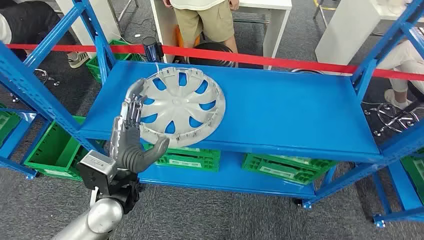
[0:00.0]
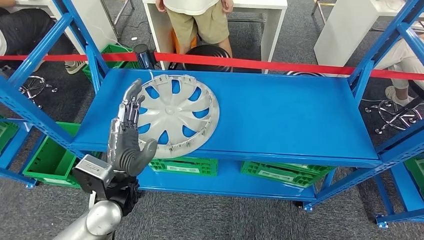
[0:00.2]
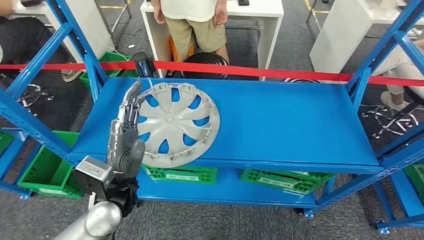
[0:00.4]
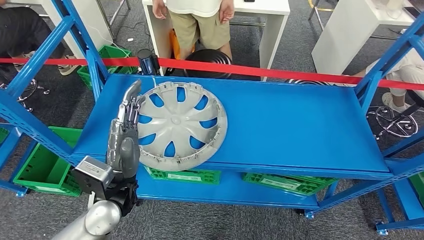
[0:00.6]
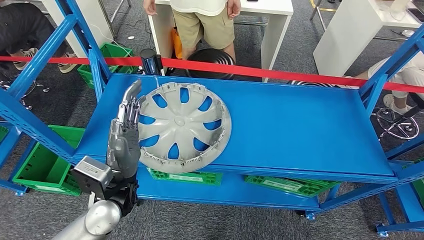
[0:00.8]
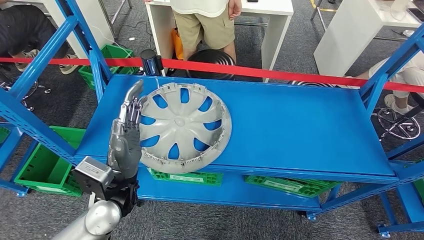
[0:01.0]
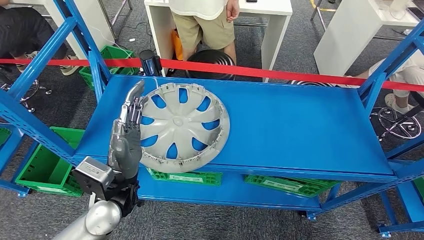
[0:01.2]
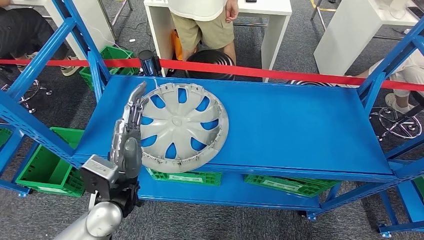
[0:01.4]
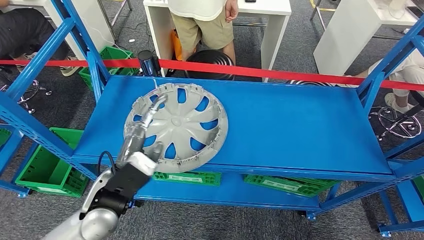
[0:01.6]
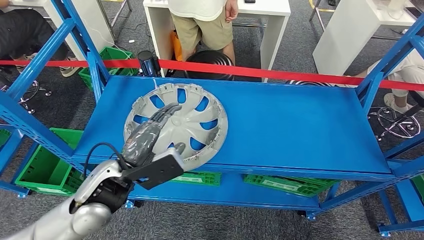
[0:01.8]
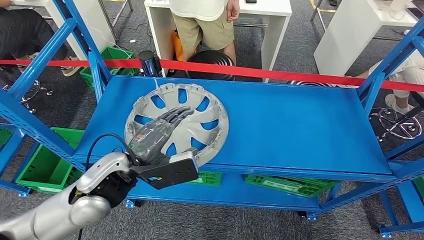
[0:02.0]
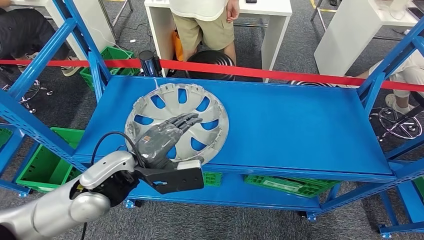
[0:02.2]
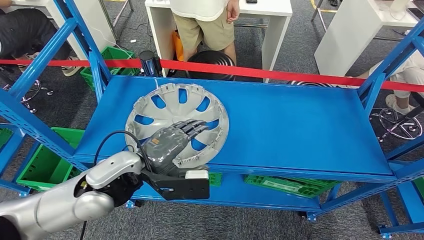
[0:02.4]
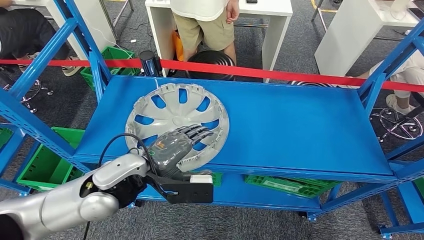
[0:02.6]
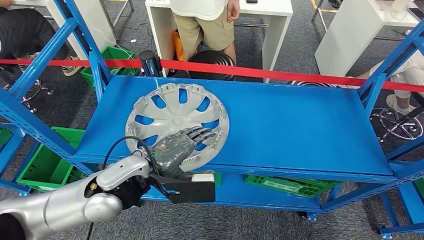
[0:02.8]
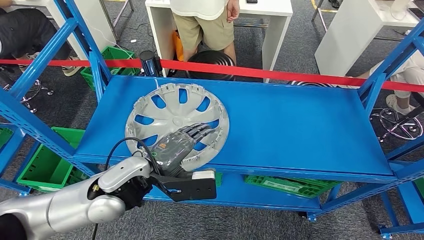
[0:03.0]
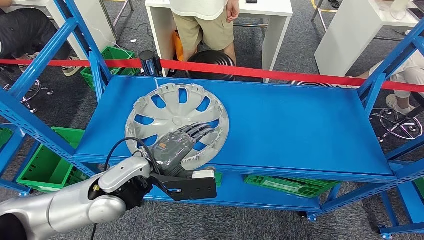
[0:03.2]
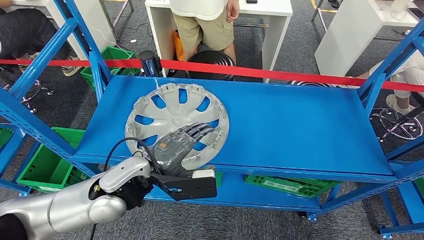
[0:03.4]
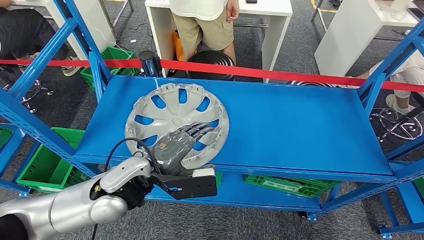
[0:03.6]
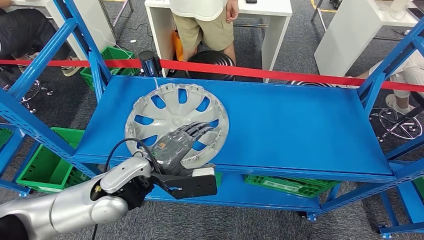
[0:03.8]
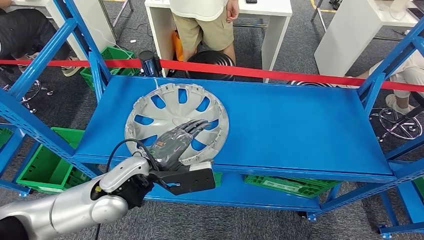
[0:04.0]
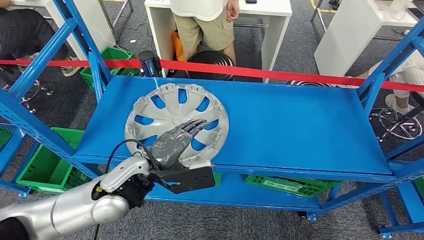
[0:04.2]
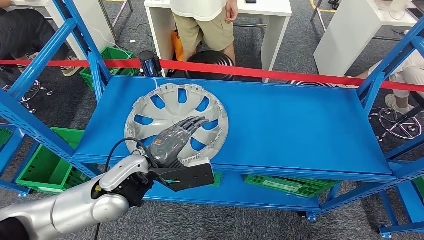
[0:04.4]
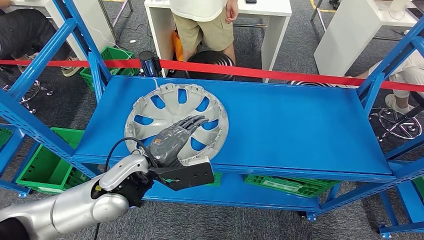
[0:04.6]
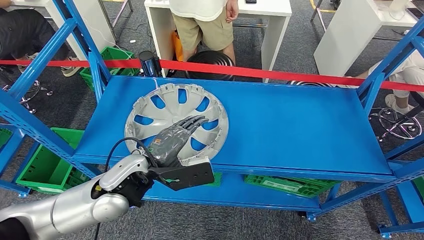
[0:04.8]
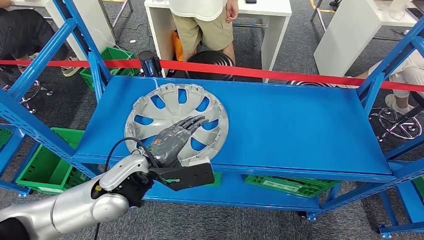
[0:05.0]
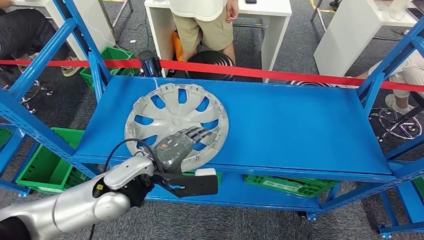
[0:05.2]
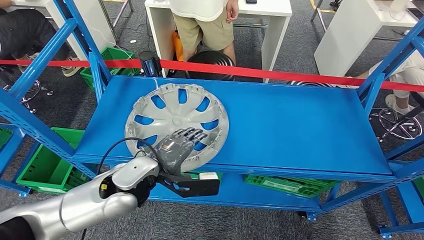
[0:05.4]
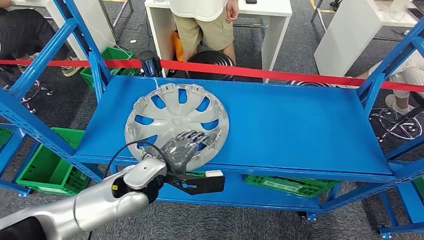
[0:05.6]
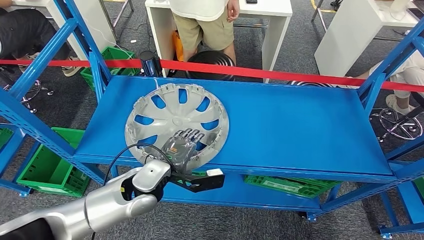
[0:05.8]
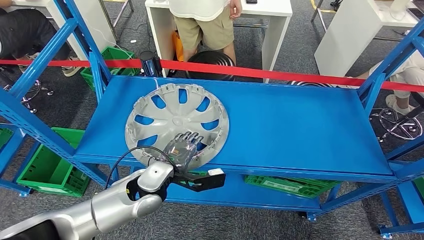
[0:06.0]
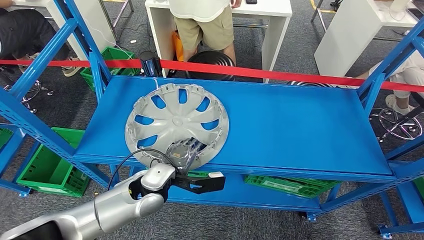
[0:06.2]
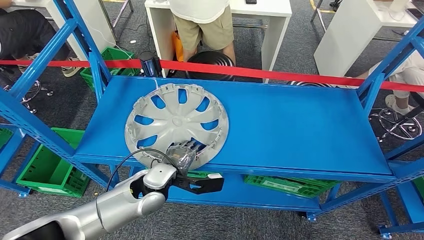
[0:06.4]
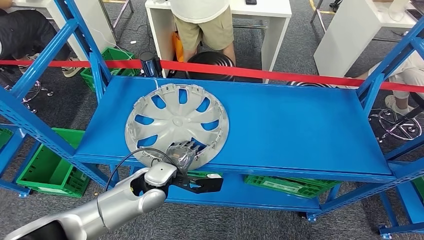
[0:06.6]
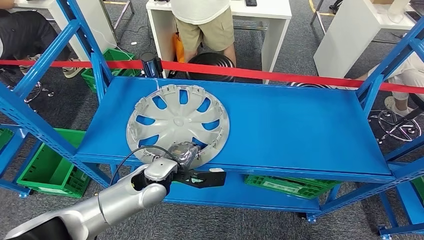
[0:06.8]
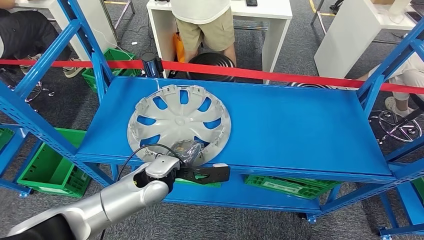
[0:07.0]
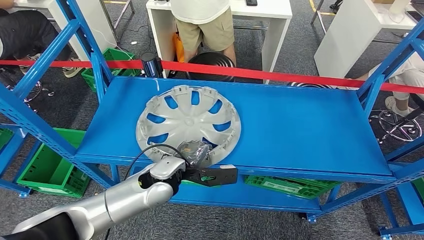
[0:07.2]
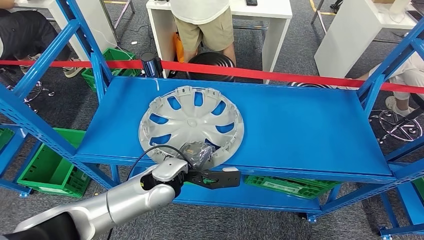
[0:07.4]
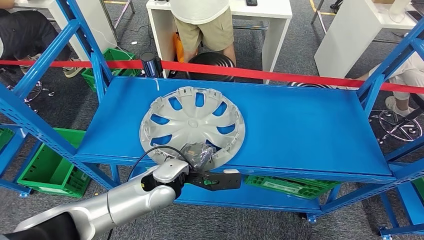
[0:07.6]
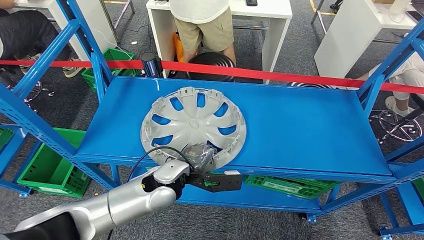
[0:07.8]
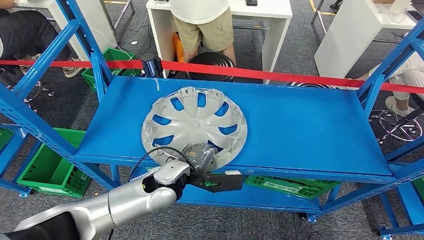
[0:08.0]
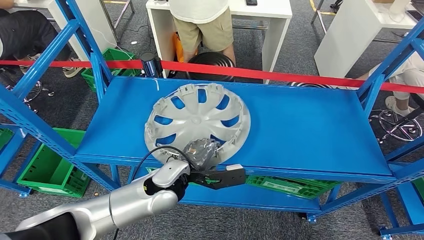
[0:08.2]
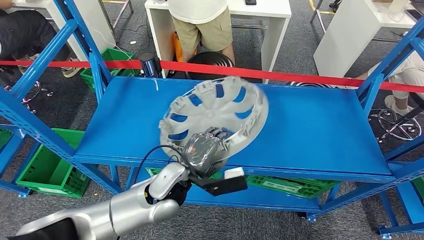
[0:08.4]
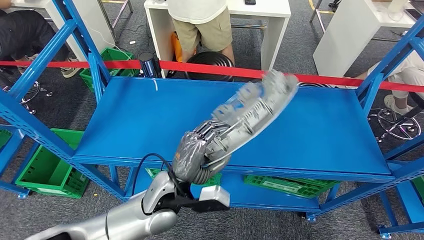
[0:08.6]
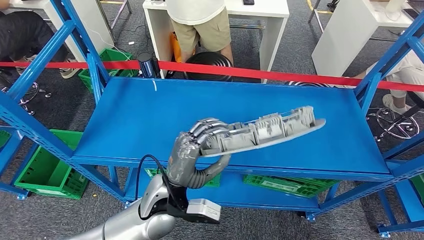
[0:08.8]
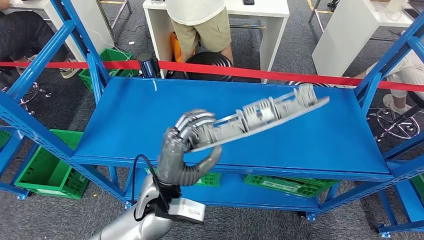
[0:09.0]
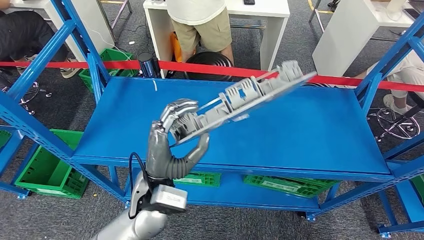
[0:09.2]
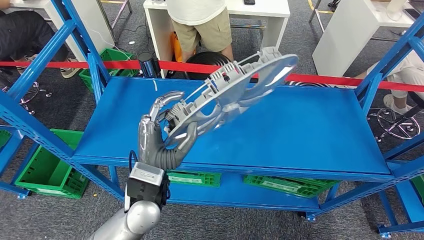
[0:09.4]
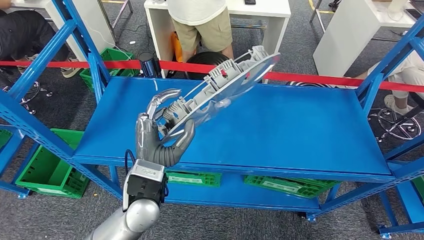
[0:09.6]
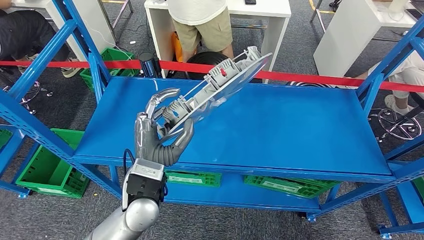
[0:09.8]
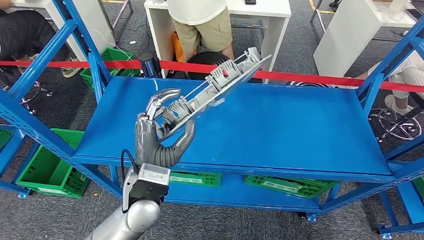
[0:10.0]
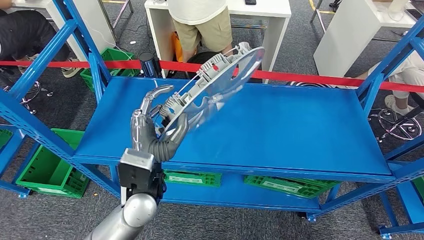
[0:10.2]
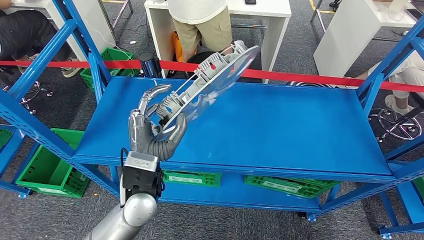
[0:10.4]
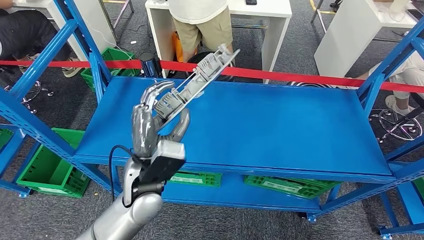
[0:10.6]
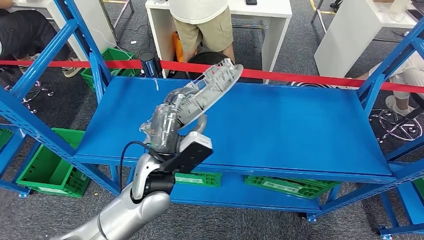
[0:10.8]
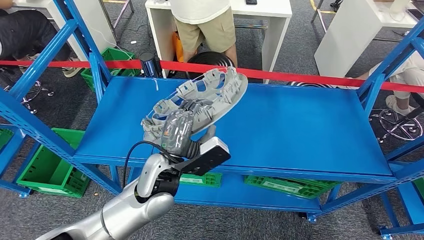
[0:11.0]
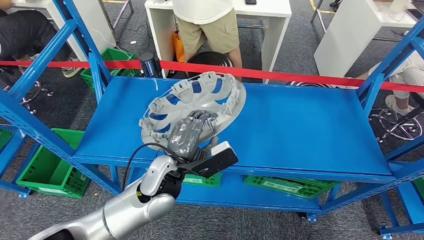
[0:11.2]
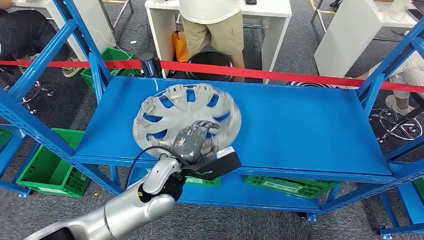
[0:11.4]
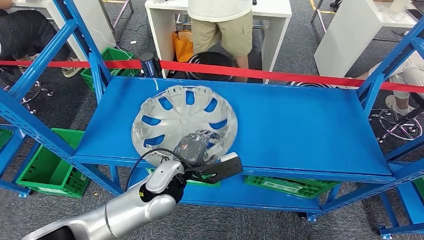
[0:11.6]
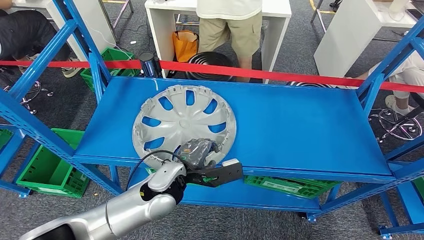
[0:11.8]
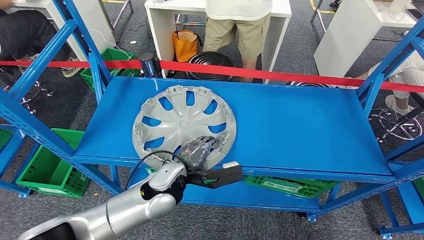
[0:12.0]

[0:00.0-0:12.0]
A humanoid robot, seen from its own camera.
0:03.0 to 0:04.4: The hands stay close to where they were, moving slightly.
0:04.4 to 0:06.0: The left hand goes some 10 cm downward.
0:06.0 to 0:07.6: The hands stay close to where they were, moving slightly.
0:10.4 to 0:12.0: The left hand shifts approximately 5 cm downward.

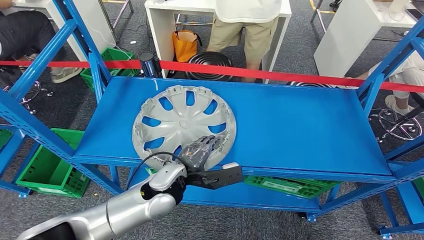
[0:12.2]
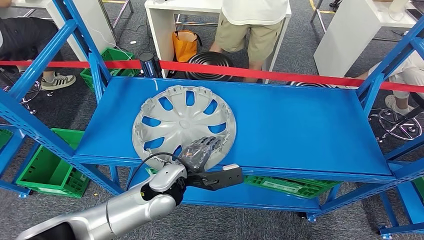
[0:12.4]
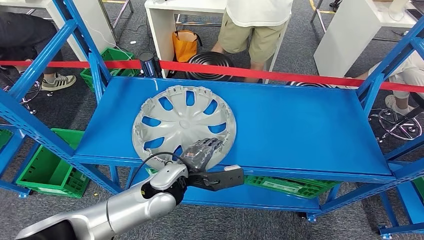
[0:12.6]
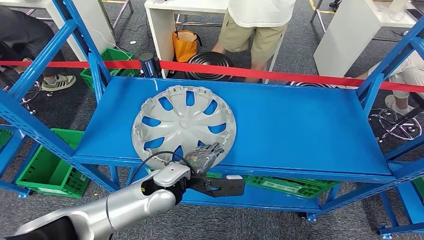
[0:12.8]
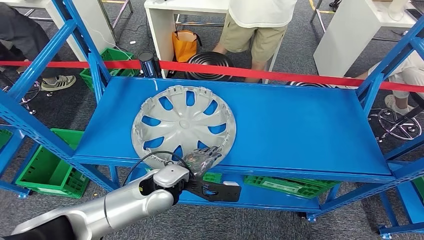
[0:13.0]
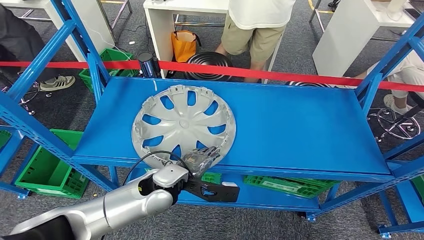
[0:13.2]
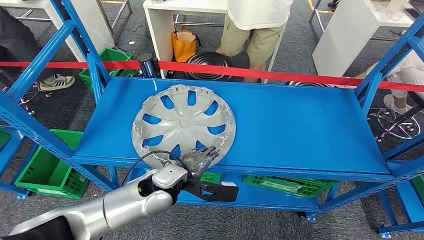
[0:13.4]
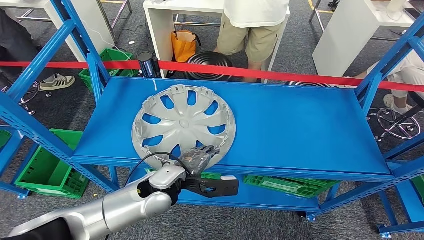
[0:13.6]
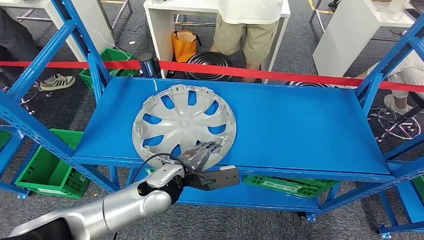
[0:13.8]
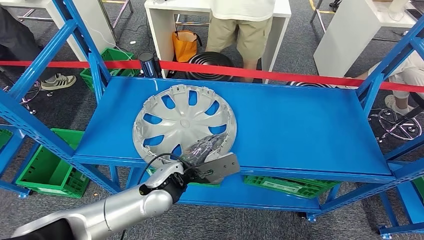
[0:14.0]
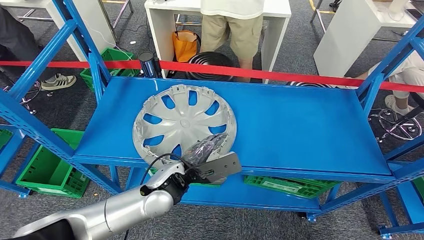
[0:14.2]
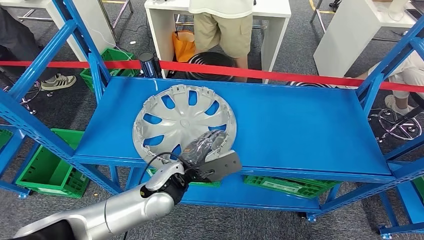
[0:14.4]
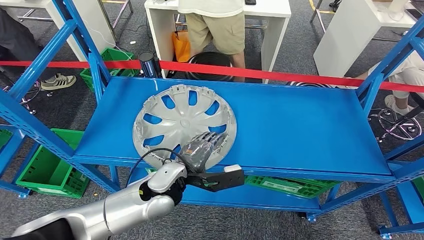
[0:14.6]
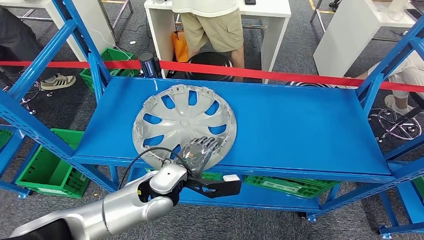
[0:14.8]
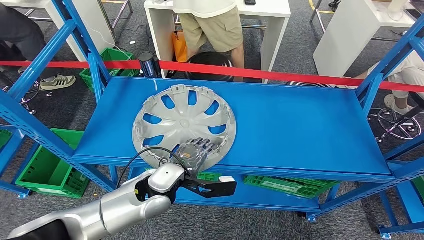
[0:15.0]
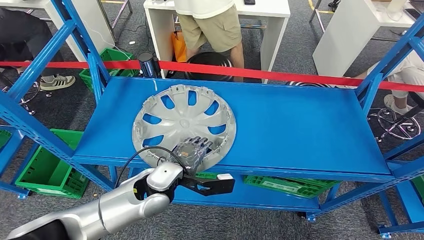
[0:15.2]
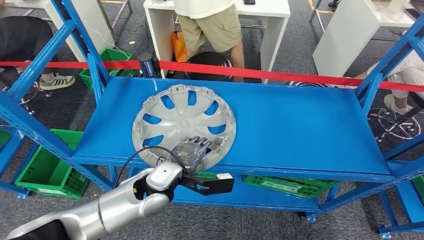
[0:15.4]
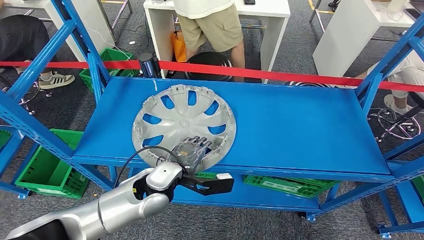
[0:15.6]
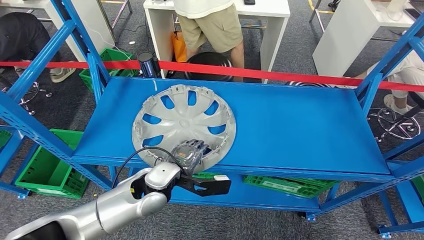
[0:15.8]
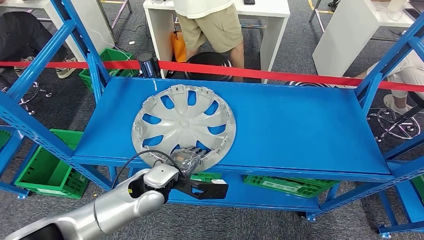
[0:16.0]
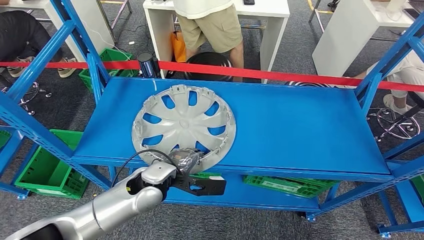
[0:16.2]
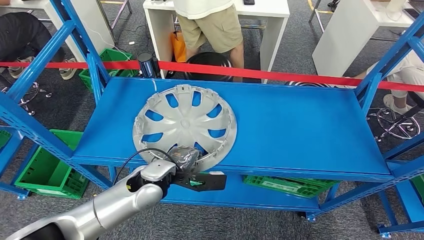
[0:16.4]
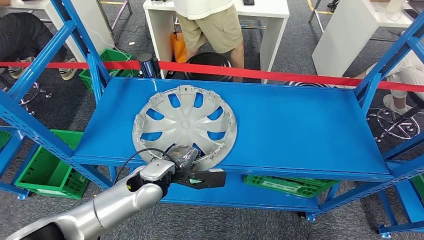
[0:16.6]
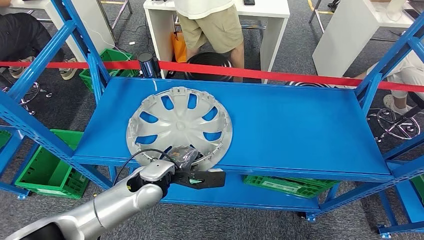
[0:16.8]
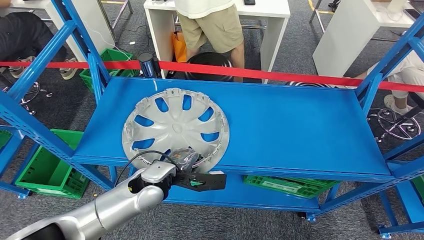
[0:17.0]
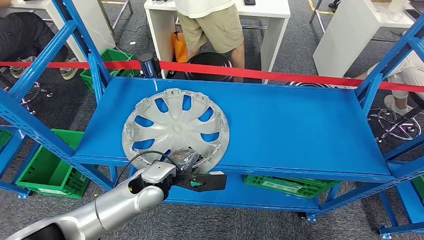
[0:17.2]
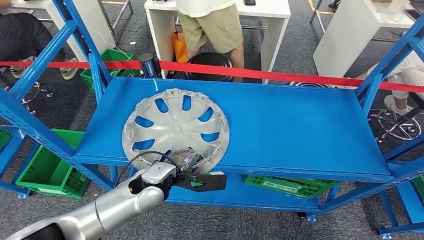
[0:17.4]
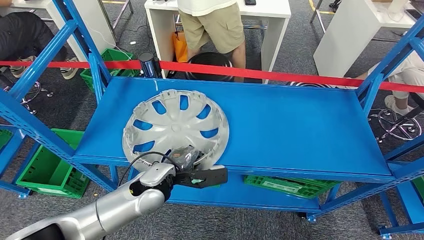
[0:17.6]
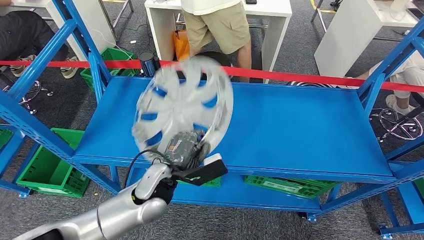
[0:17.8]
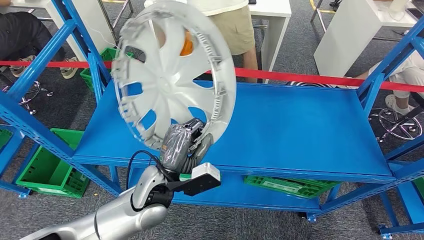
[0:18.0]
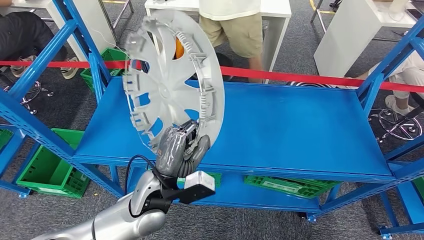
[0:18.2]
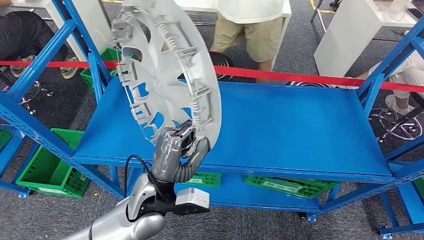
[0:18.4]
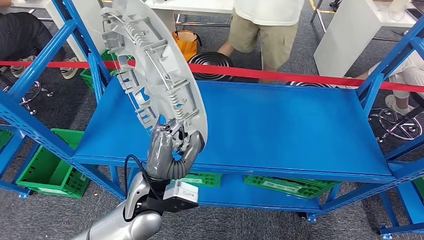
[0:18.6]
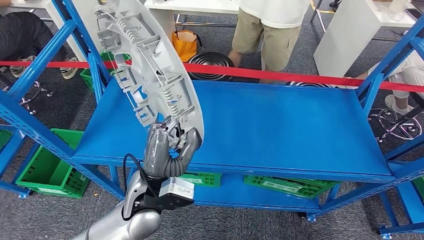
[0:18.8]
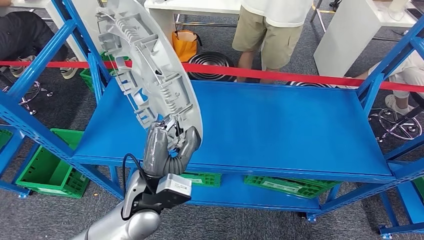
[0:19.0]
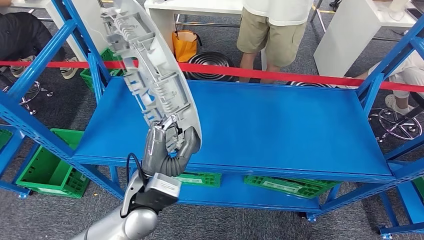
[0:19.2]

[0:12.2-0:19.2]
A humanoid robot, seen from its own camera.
0:15.0 to 0:16.4: There are only small adjustments of the hands.
